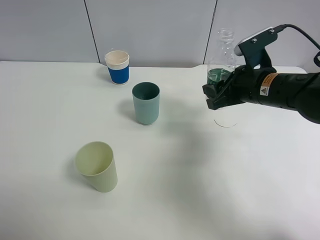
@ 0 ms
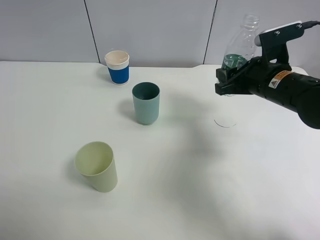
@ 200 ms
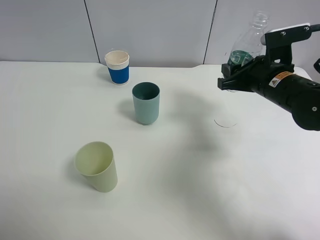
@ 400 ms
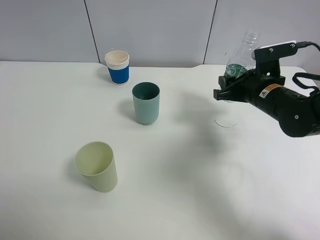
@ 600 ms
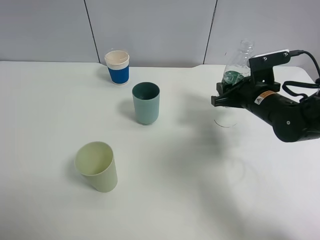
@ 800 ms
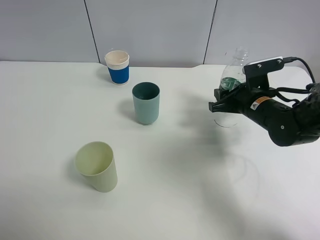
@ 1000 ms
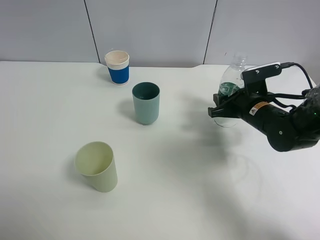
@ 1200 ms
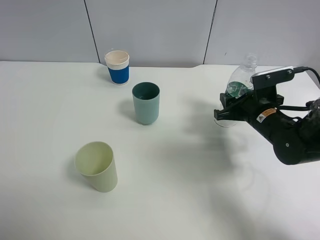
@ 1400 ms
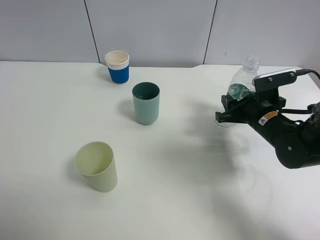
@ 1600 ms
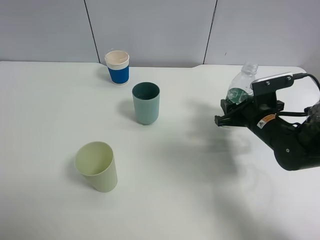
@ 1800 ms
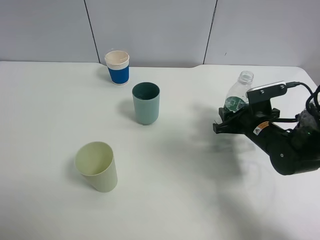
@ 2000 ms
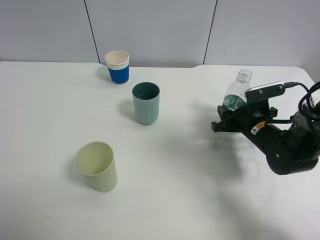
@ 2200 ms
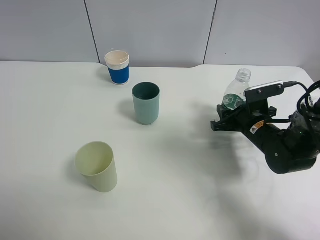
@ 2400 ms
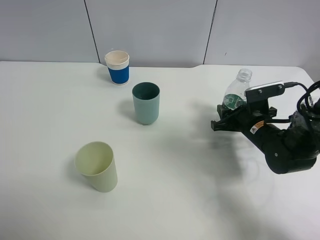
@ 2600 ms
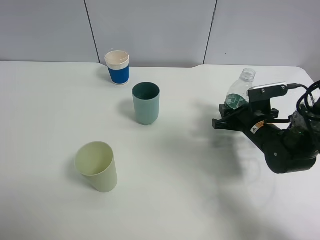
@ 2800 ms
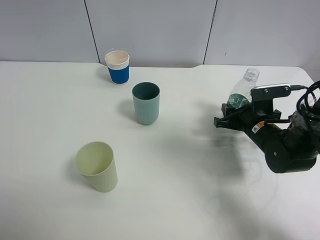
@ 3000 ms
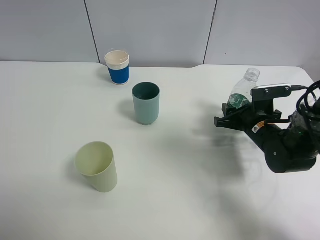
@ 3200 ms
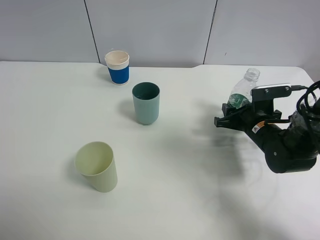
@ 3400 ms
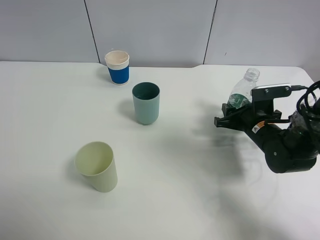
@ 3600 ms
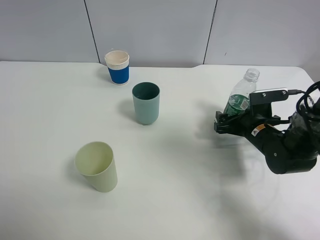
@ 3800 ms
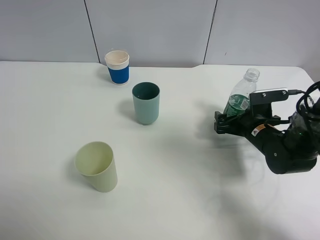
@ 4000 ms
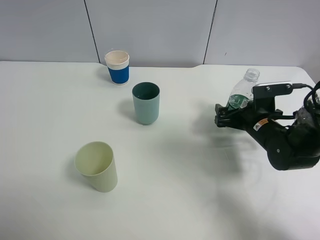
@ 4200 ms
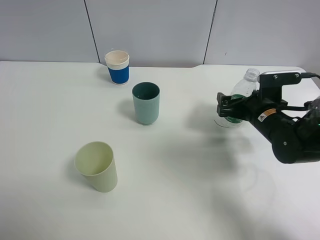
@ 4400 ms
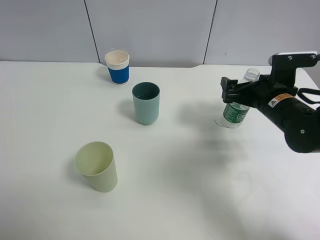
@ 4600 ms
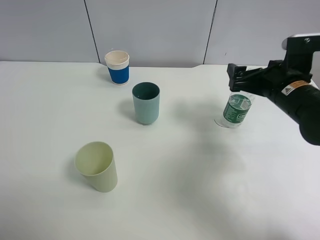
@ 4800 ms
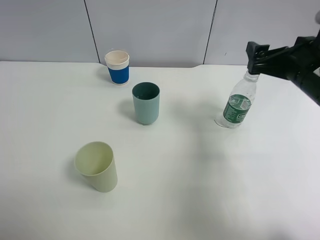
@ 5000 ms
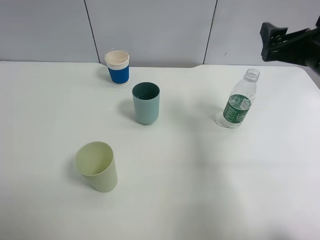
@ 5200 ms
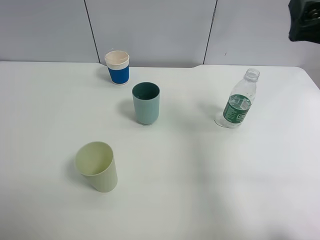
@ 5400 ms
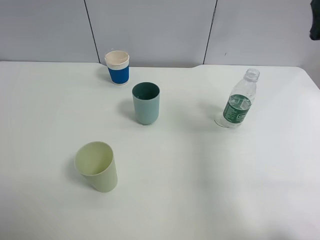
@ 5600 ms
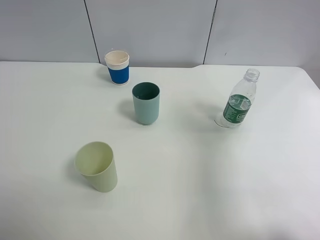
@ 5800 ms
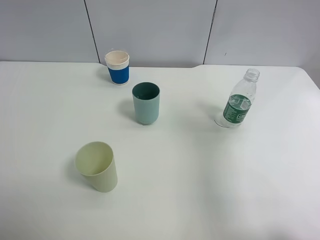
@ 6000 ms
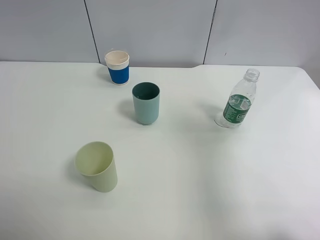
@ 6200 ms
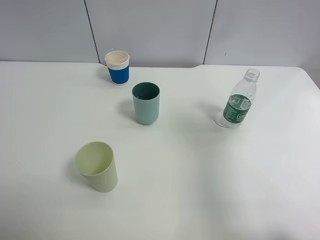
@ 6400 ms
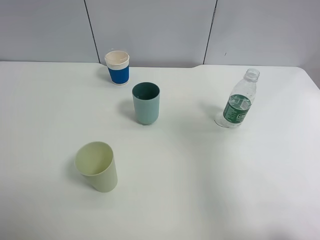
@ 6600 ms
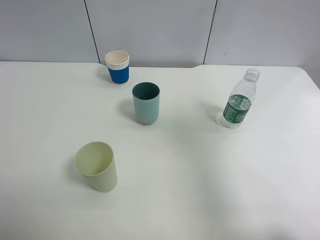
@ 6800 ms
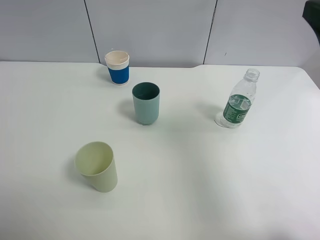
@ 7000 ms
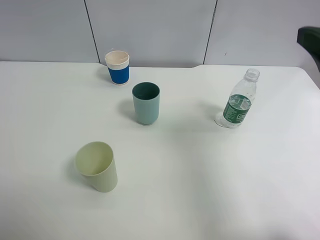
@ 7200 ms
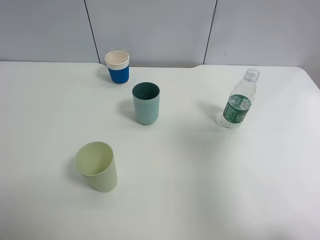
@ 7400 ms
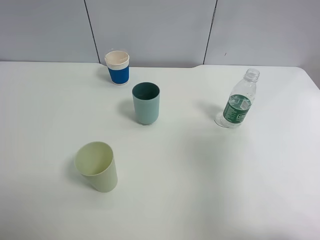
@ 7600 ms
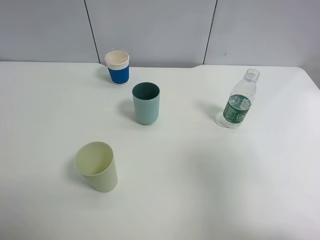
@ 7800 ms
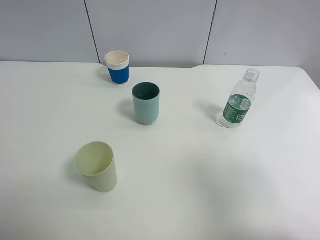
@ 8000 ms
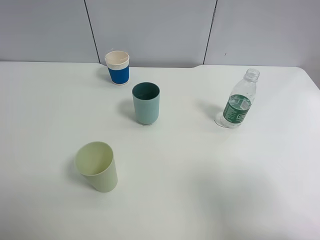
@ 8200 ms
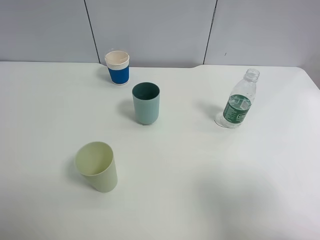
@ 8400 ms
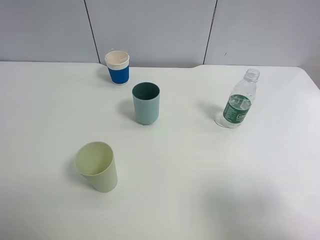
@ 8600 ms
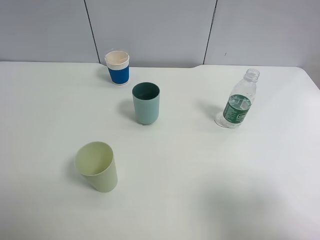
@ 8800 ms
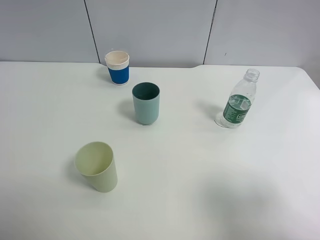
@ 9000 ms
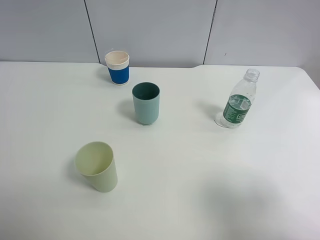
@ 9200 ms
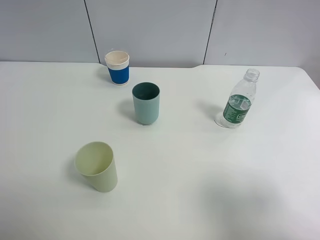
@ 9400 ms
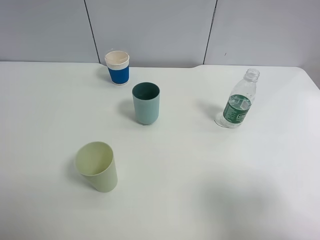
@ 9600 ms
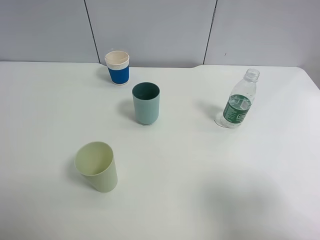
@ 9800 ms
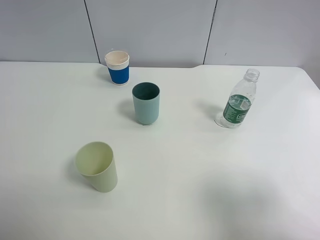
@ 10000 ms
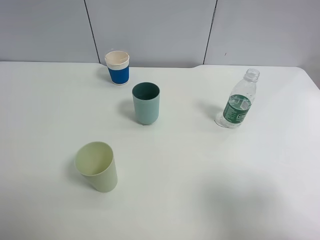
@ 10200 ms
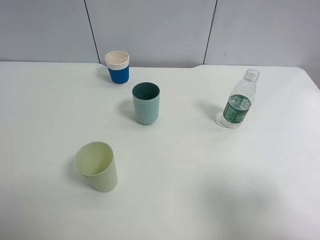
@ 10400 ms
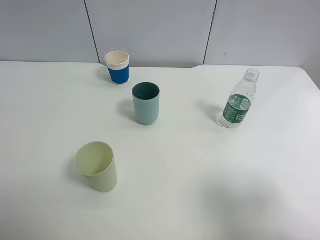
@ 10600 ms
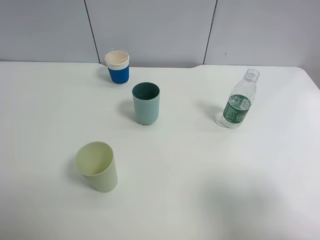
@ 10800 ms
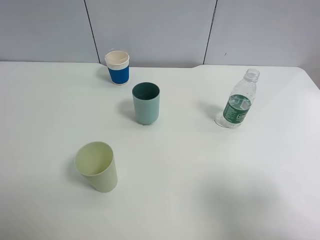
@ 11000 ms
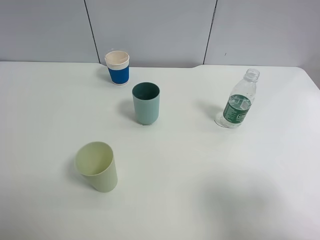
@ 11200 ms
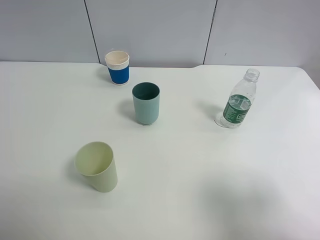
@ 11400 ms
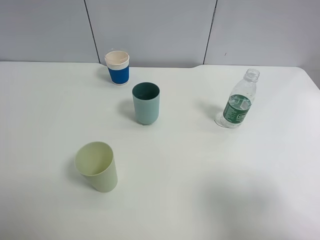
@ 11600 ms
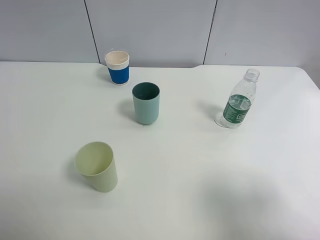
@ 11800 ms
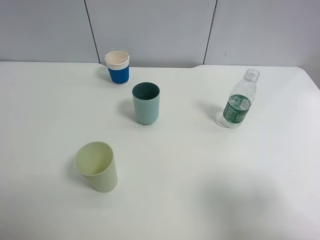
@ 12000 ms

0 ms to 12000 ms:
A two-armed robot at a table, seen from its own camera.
Task of the whole recording: use a clamp to hold the bottle of the drink, pour the beverage into a random cup, then clamp the cup containing the drink and pour the drink into another random cup.
Step, 0 ms to 4600 ms: Place the water bottle on the table with right gripper.
0 ms to 1600 ms: The right gripper travels downward by about 10 cm.
1600 ms to 3000 ms: The grippers stay close to where they were, moving slightly.
3000 ms to 4400 ms: The right gripper opens.
4400 ms to 6000 ms: The right gripper shifts approximately 25 cm upward and backward.
7600 ms to 9000 ms: The right gripper goes roughly 10 cm backward and downward.
9000 ms to 12000 ms: Neither gripper changes place.

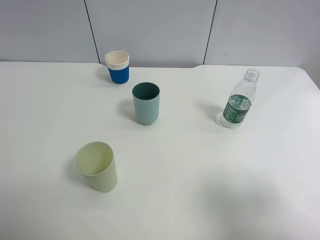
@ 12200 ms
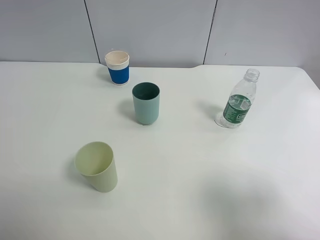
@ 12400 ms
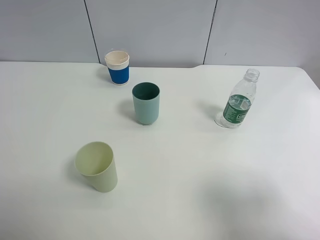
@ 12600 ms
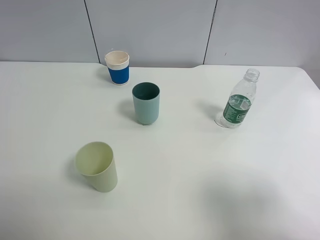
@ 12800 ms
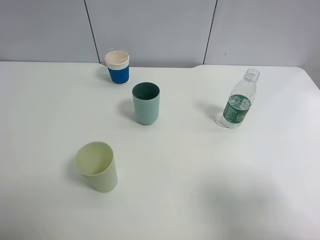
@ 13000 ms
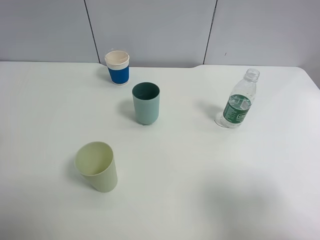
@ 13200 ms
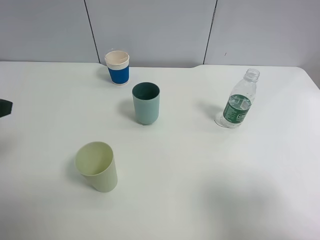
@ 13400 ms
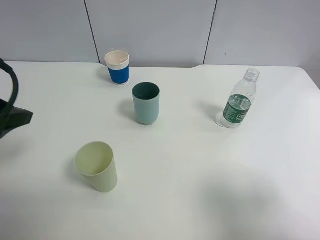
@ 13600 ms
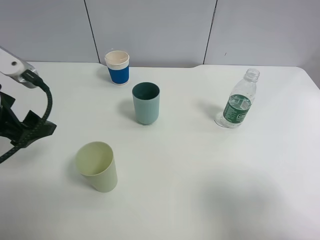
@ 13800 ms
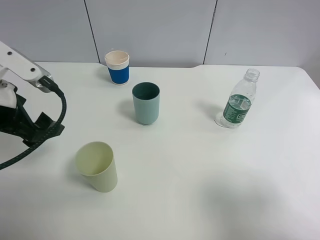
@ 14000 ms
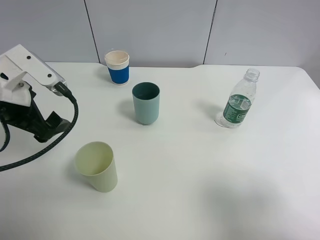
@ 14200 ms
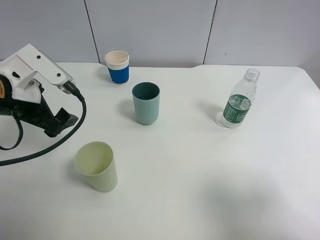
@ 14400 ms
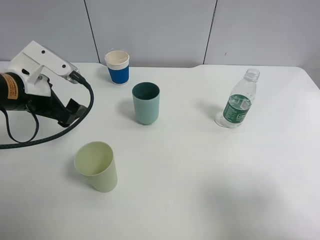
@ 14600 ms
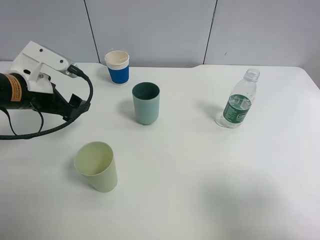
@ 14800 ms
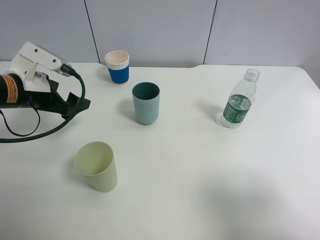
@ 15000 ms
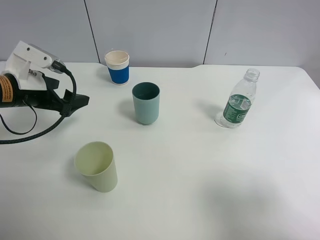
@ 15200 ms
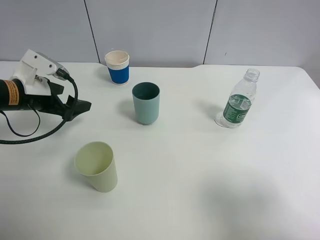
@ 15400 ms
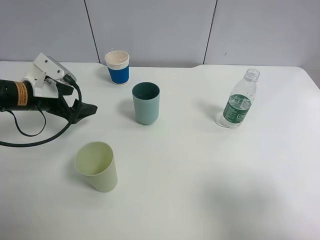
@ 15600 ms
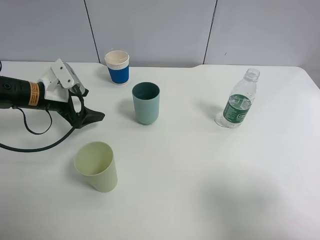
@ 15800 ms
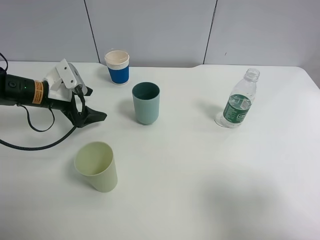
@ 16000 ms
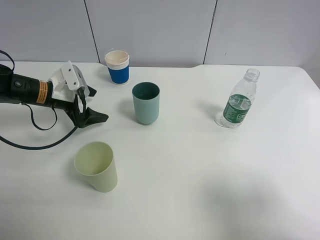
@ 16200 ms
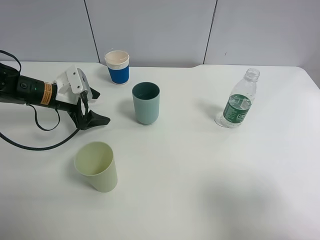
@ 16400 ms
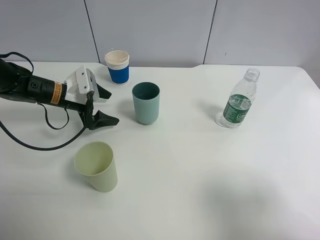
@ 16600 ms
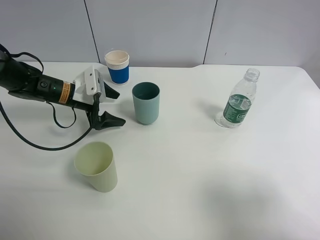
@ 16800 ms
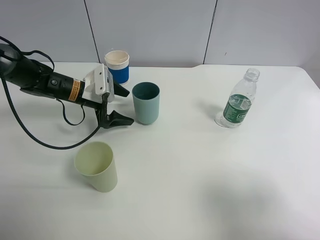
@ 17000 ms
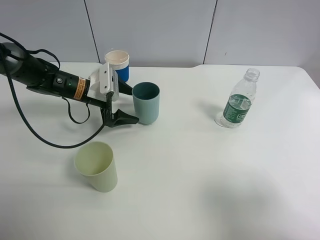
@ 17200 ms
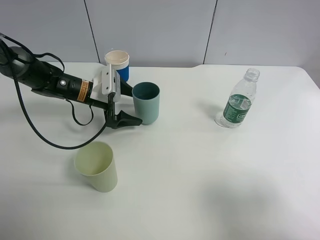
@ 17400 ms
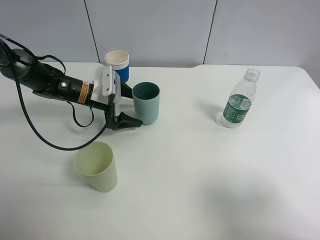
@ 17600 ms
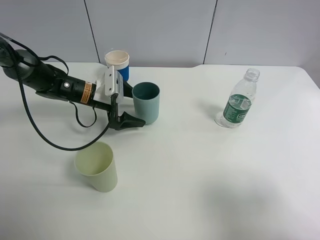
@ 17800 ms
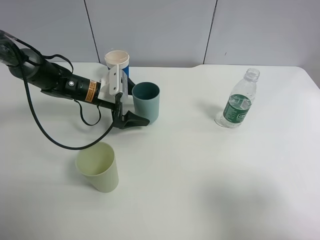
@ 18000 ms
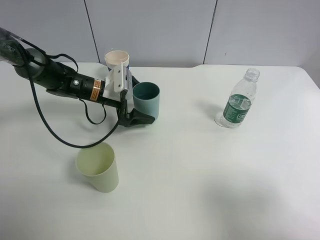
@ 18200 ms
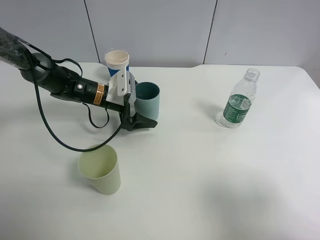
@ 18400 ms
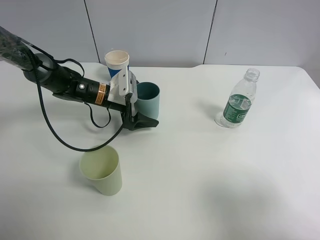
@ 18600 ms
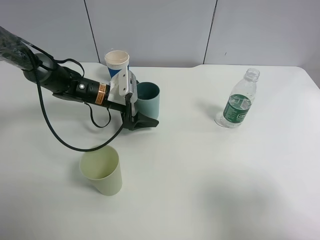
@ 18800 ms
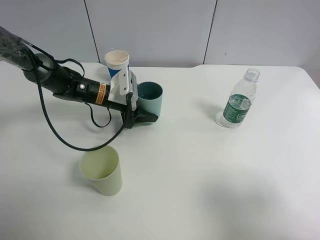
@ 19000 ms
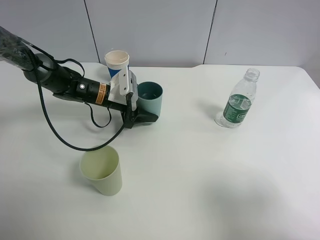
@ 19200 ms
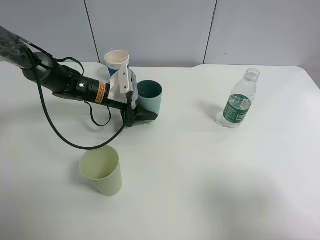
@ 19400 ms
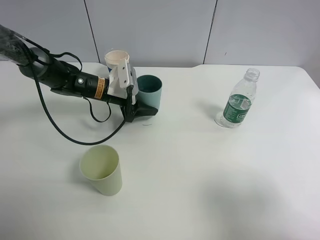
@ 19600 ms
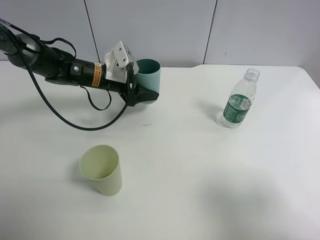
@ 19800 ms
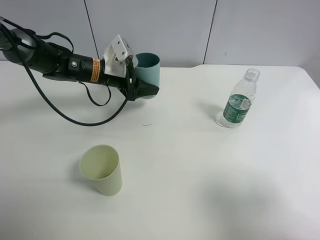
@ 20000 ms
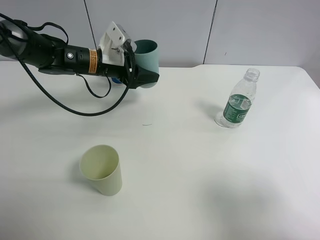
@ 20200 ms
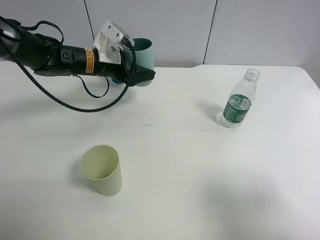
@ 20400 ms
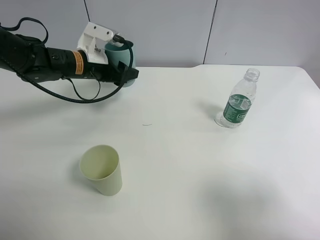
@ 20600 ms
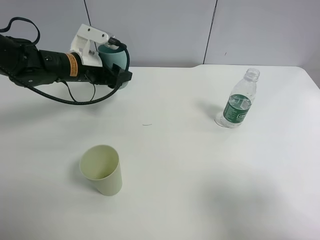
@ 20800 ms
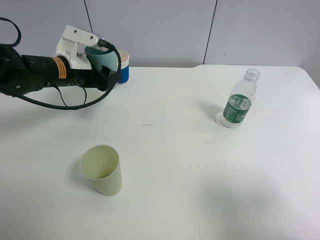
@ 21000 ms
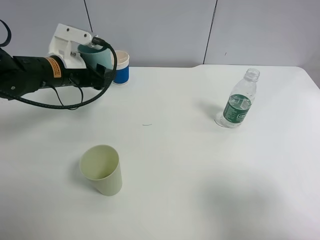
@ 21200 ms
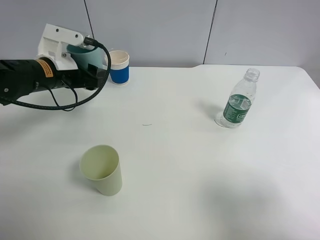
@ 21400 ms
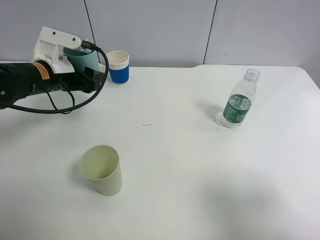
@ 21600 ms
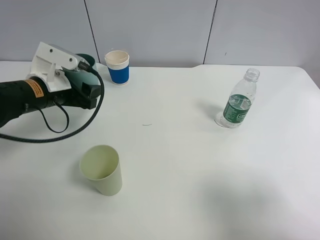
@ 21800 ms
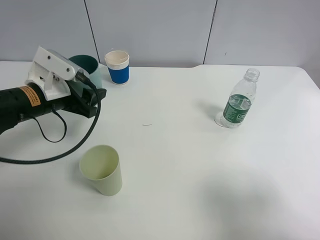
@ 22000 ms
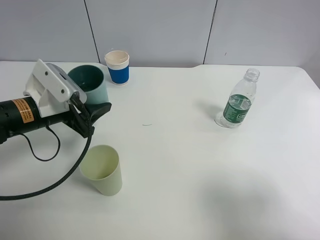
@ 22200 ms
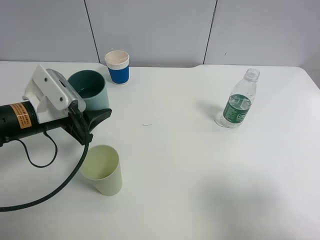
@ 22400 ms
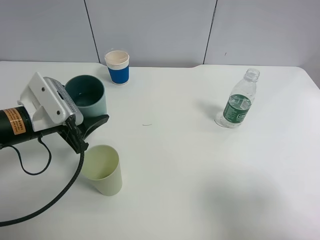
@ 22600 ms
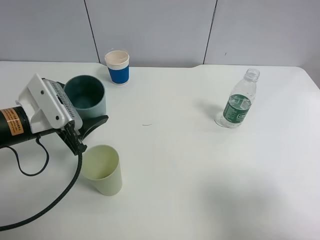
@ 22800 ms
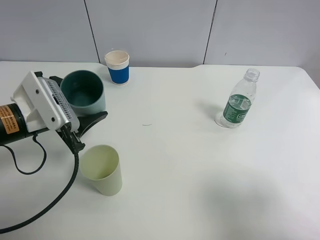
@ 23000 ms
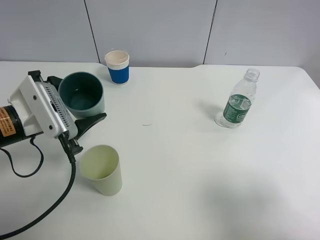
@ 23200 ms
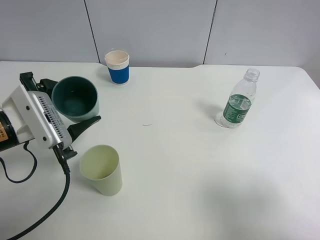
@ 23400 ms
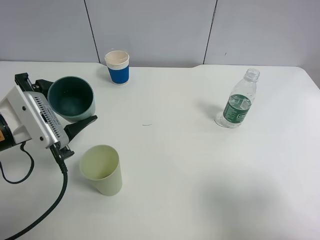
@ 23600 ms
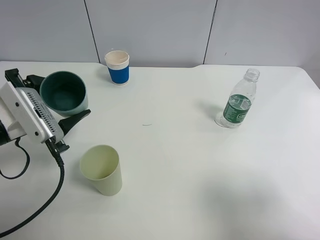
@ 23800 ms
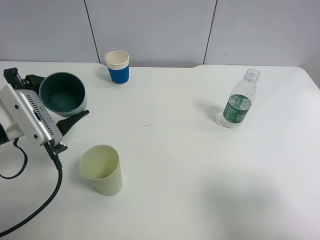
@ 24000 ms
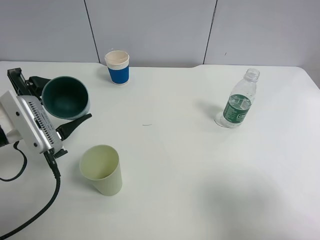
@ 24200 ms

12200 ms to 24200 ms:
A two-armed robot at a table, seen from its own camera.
Task of the whole recording: use a clamp to hold the bottle of the drink, pour the beverage into a random cup, then clamp the cup containing the drink and pour the drink into another random cup.
Step, 12200 ms to 20000 ms: Pick up the blue plastic cup bottle with left gripper.
12200 ms to 13800 ms: The left gripper goes about 20 cm forward.
13800 ms to 15200 ms: The left gripper heads forward and downward, covering roughly 10 cm.
15200 ms to 16600 ms: The left gripper travels forward and downward by approximately 10 cm.
16600 ms to 18200 ms: The left gripper heads to the right, covering approximately 10 cm.
18200 ms to 19800 ms: The left gripper closes.
19800 ms to 21200 ms: The left gripper heads to the left, backward and upward, covering roughly 10 cm.
21200 ms to 22600 ms: The left gripper moves backward, roughly 10 cm.
